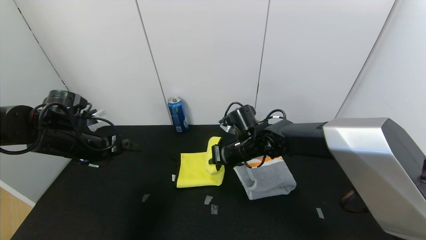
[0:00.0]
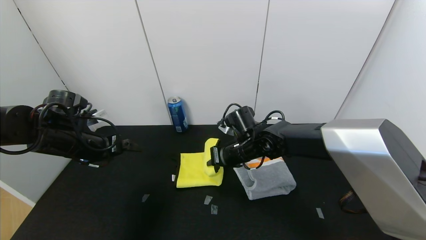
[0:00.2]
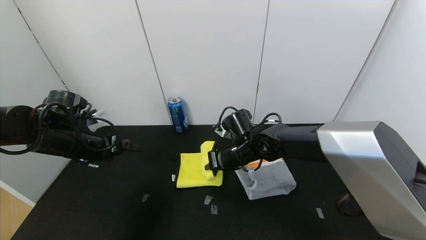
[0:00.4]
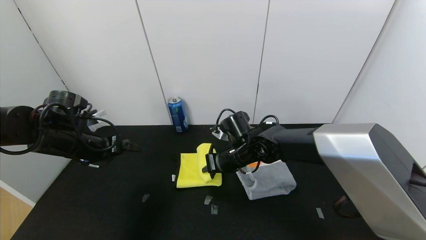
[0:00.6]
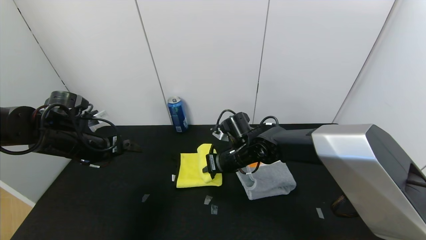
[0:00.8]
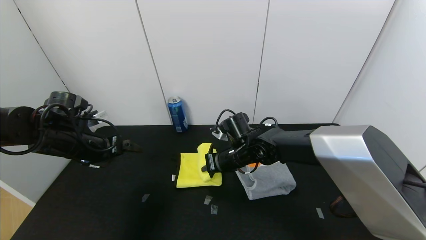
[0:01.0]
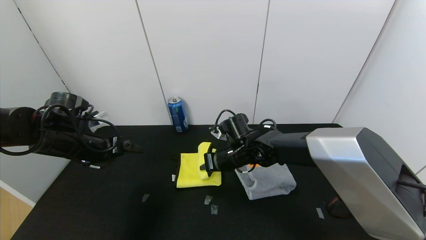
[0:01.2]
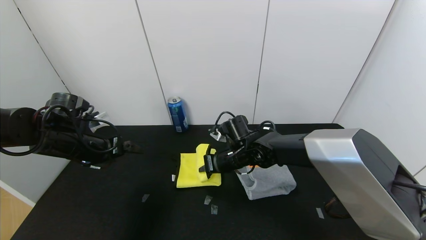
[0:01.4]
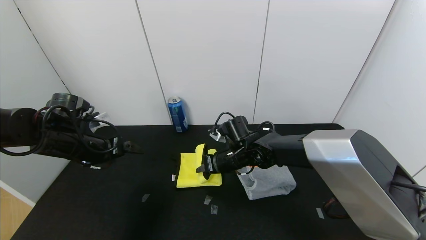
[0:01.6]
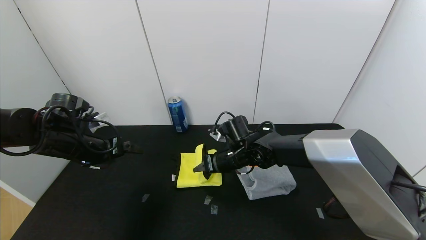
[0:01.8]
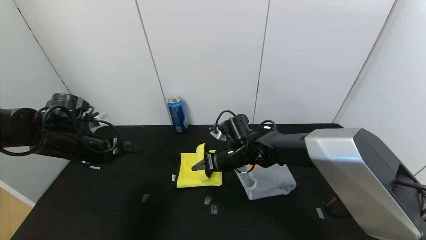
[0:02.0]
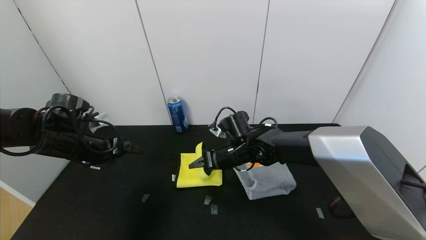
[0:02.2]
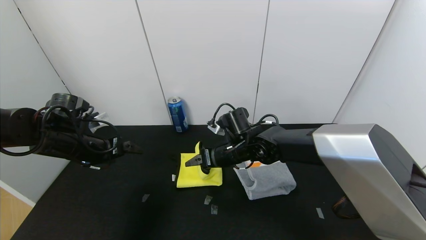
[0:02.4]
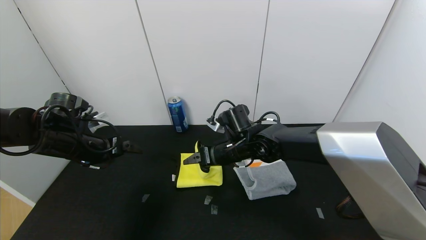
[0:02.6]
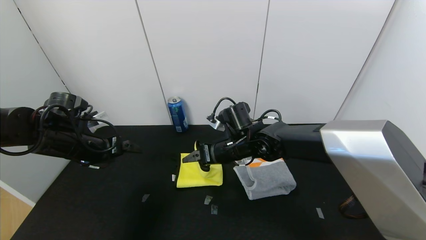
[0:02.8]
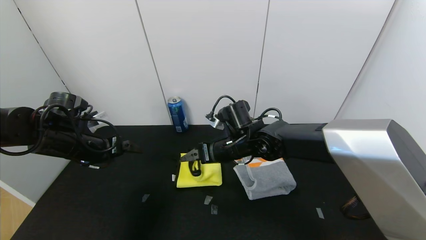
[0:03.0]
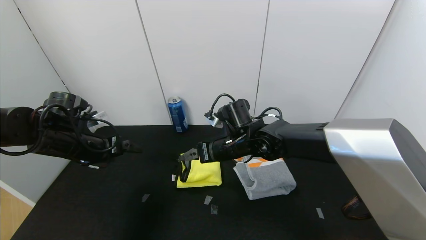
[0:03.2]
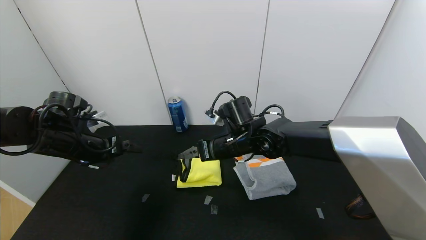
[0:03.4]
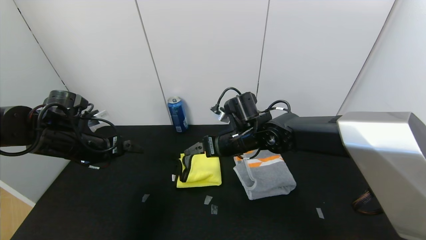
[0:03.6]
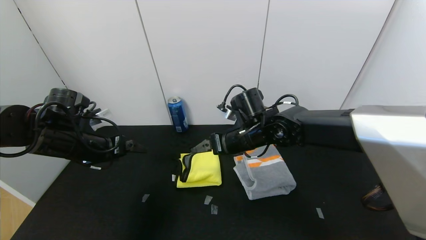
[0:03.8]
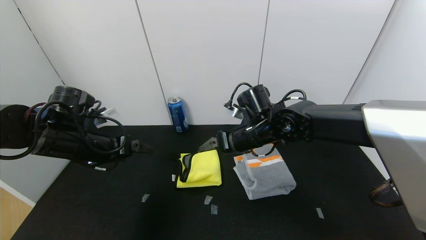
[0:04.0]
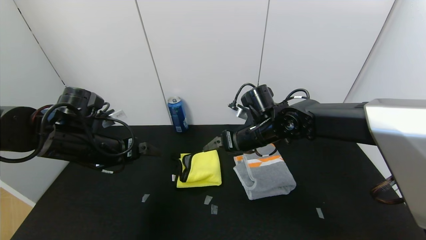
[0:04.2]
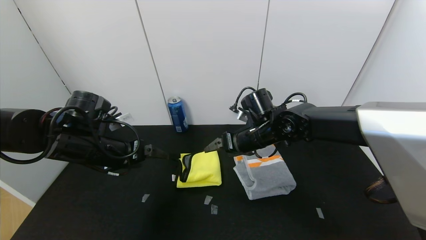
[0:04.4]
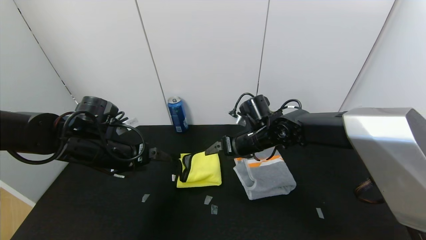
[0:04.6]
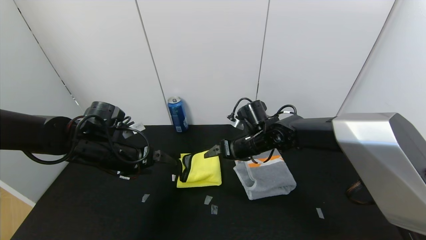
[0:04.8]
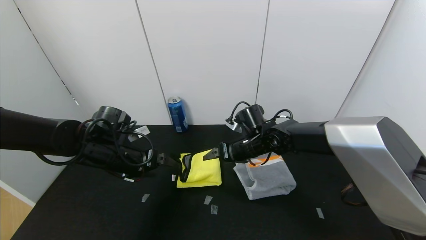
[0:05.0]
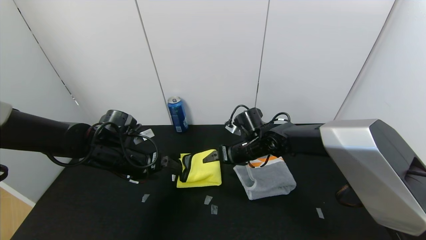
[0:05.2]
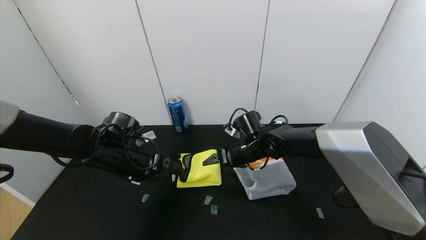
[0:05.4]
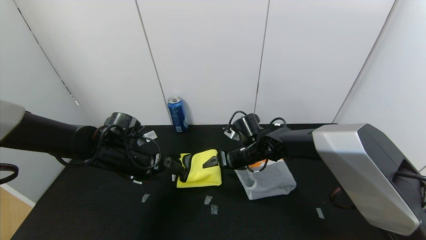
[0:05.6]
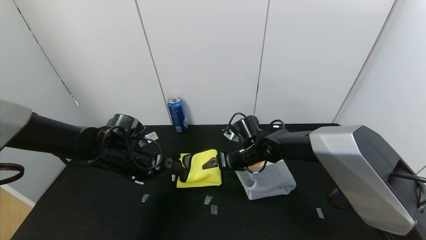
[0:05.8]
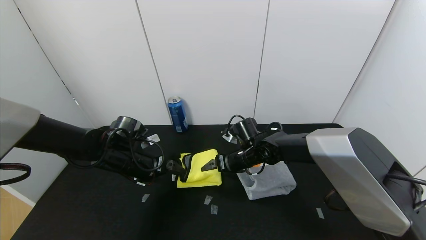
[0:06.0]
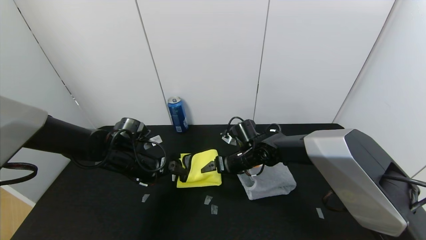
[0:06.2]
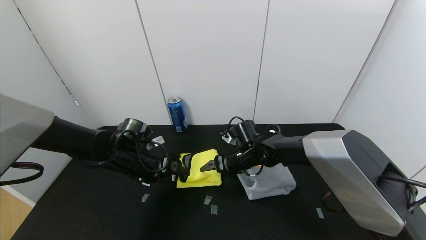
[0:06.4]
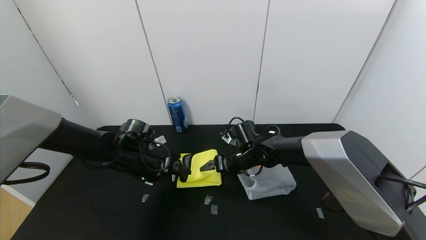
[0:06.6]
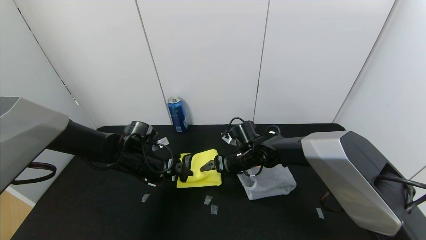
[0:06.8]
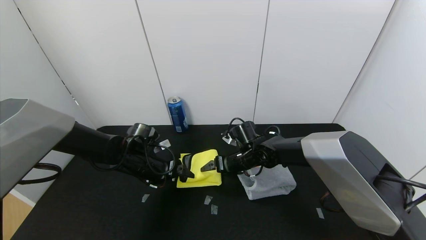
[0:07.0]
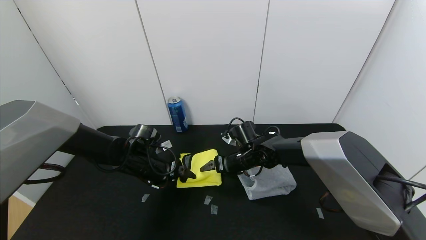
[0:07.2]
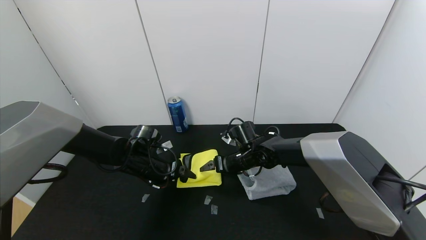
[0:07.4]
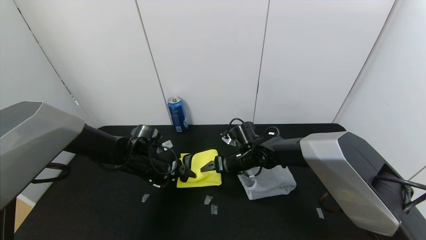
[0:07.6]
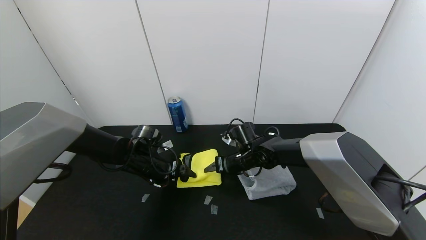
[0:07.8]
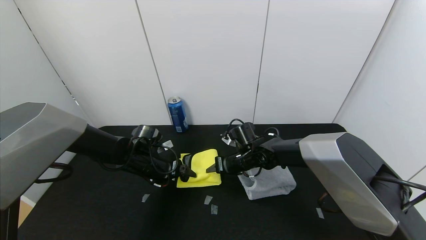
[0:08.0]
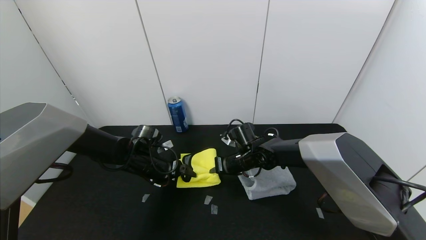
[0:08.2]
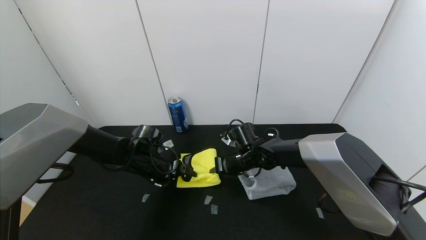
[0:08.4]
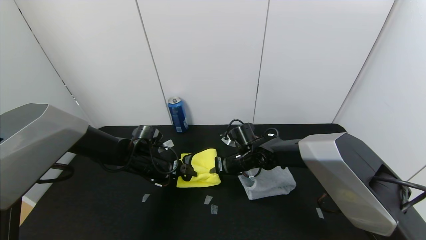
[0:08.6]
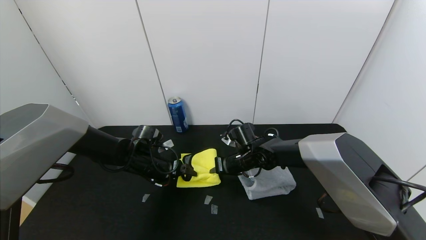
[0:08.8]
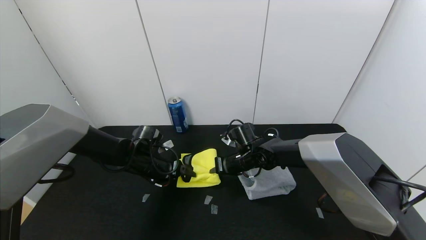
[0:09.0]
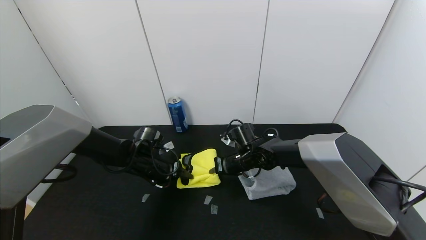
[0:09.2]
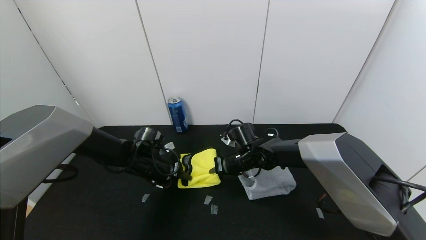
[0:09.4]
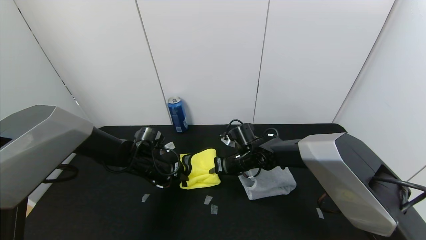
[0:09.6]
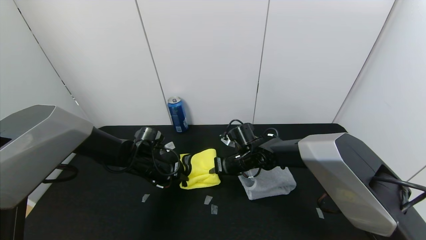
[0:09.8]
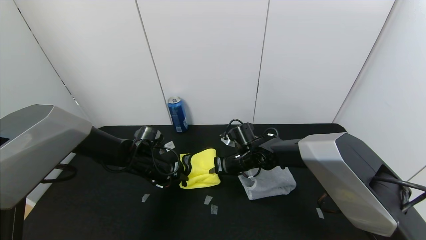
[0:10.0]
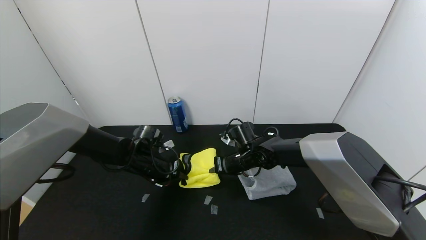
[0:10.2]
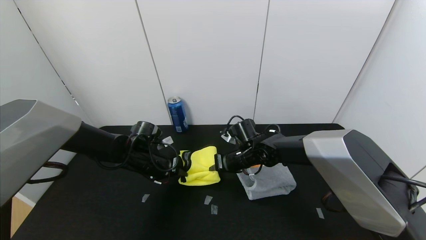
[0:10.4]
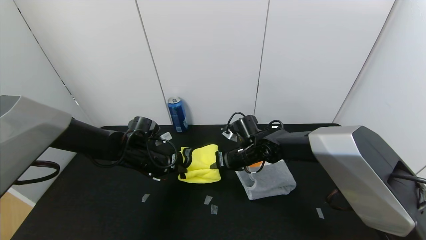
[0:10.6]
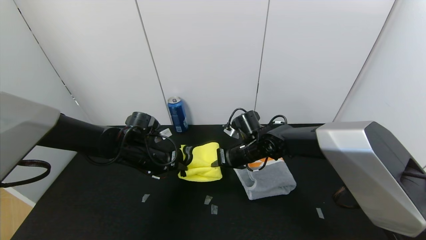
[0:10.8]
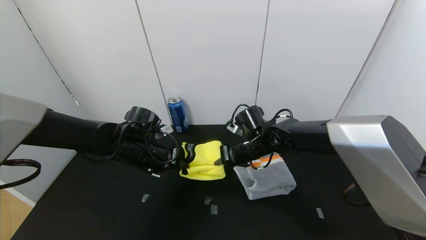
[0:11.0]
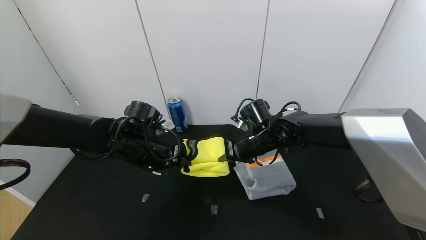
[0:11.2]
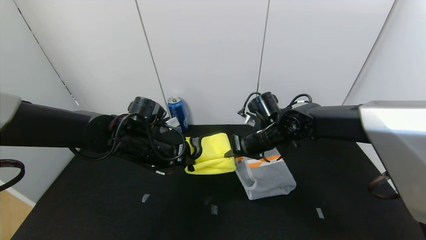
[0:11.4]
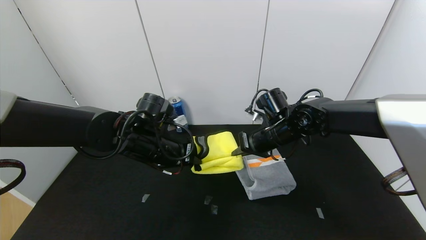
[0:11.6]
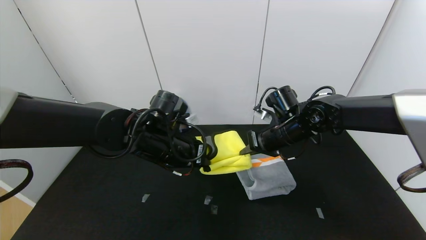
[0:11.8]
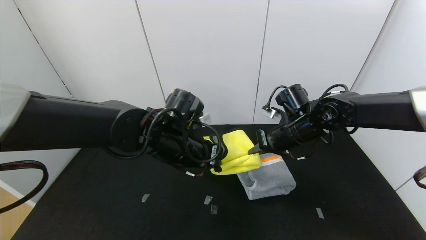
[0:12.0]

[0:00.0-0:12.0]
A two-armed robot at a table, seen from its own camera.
Task of the whole recording: Use the gripper to fold the yellow towel and grey towel in half twice,then put the yellow towel on the grey towel.
Step, 0:00.0 to 0:03.2: Fold the yellow towel from right to left with right gripper.
0:00.0 to 0:01.6: The grippers stay close to where they were, moving slightly.
0:01.6 to 0:03.0: The right gripper shifts by roughly 5 cm, and opens up.
0:03.0 to 0:04.4: The grippers both shift to the right by approximately 5 cm.
0:04.4 to 0:06.0: The two grippers go roughly 10 cm downward.
0:06.0 to 0:07.6: The left gripper moves about 5 cm.
0:07.6 to 0:09.0: The right gripper closes its fingers.
0:09.0 to 0:10.4: The left gripper closes.
0:10.4 to 0:12.0: The left gripper shifts about 20 cm to the right, upward and backward, while the right gripper moves to the right and upward, about 15 cm.

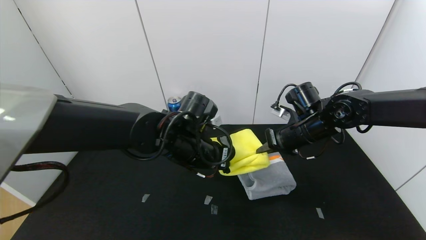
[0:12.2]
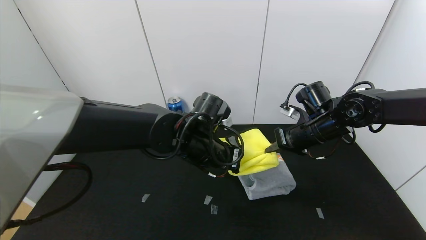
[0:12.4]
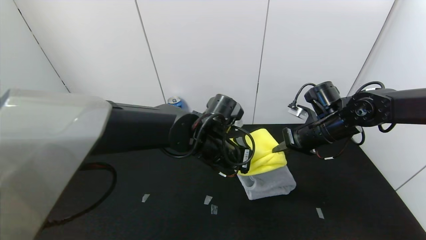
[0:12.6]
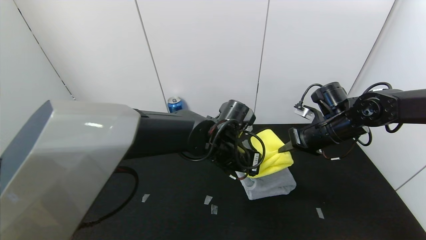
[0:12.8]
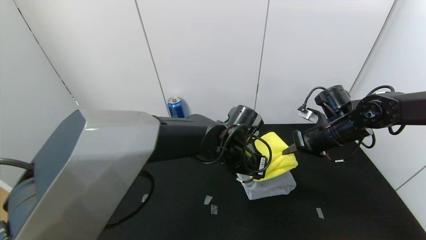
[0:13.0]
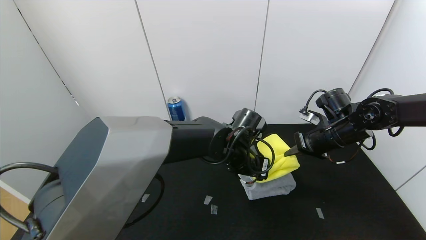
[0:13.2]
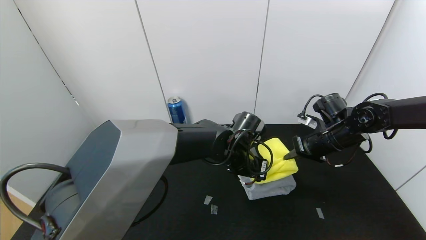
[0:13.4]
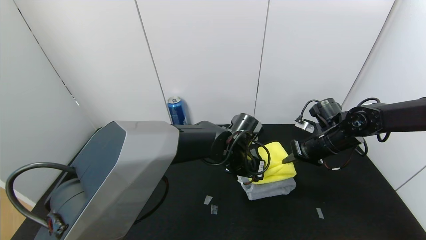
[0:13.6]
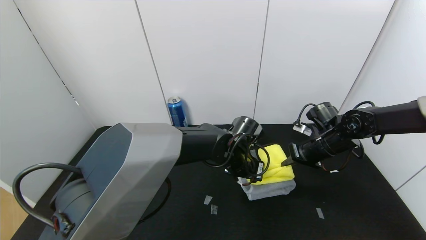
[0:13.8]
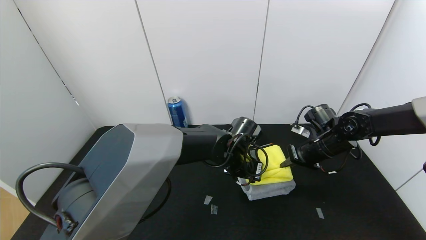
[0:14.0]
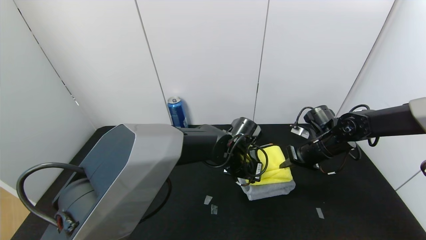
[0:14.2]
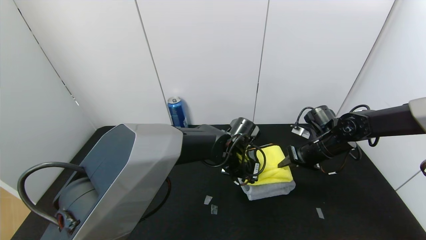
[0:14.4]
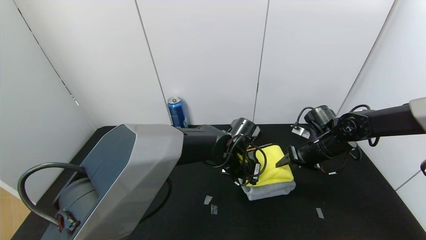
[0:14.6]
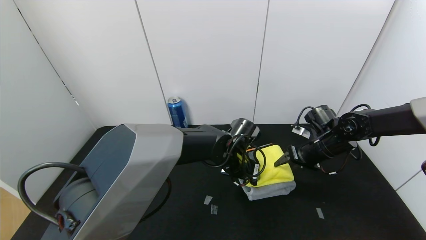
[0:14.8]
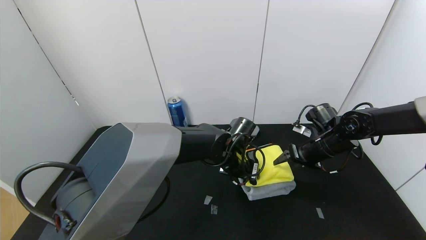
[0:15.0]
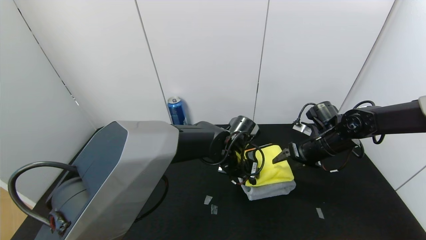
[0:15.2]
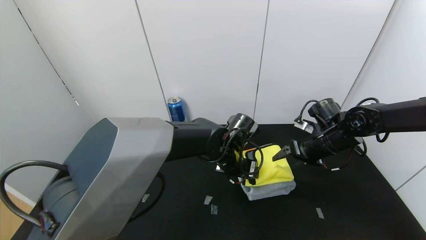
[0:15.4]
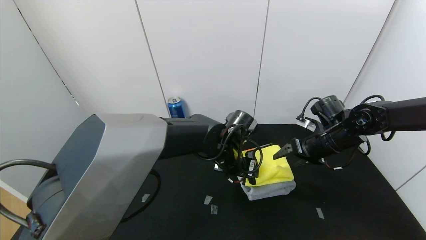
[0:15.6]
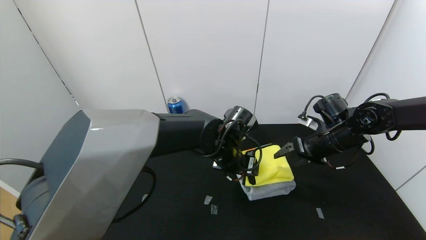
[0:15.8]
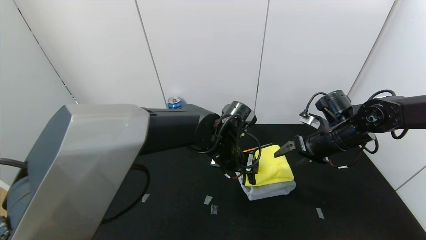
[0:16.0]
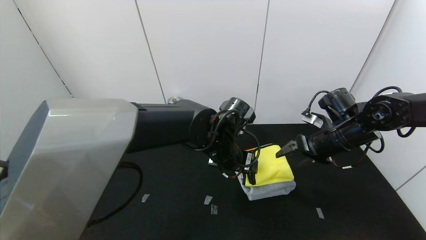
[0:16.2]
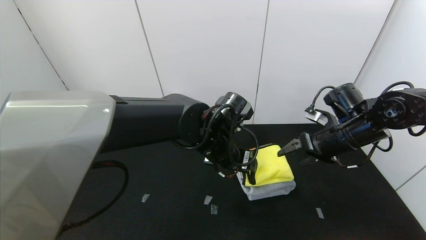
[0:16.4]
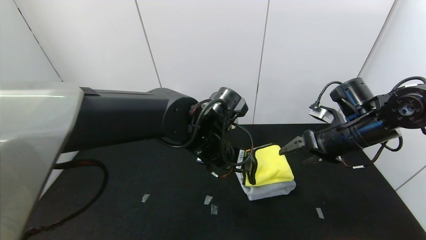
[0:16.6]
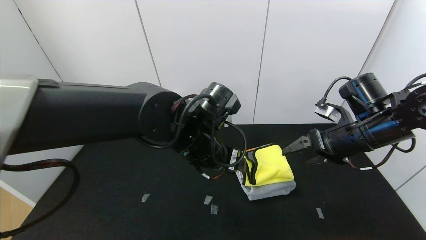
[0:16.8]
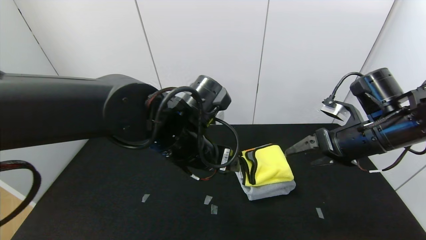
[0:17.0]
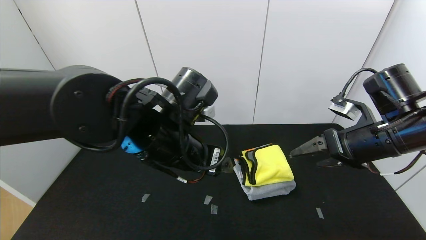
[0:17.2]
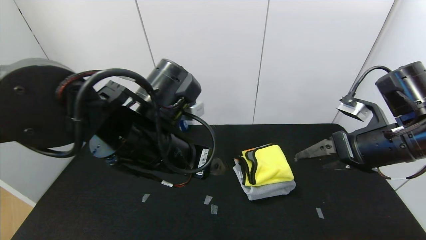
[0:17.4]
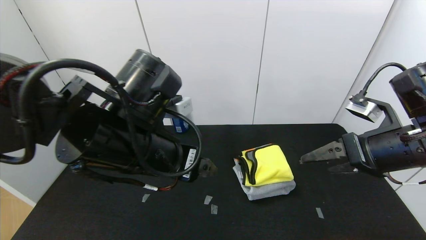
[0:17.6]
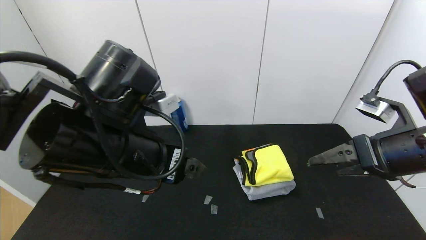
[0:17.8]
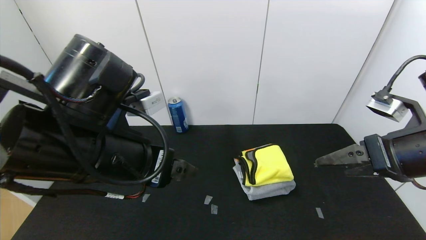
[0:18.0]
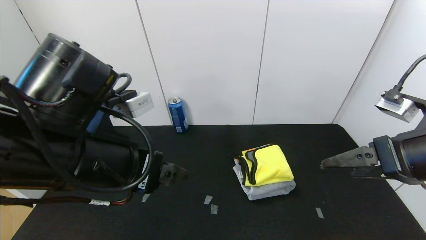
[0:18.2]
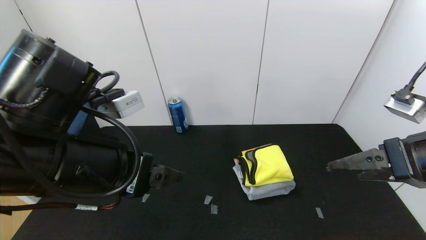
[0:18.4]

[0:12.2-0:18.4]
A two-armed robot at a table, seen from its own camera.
Task of the whole recording: Use the gripper to fold the yellow towel and grey towel in half twice,then put the yellow towel on the grey towel.
Step, 0:12.2 to 0:15.8: Place the yellow towel on the gray towel with the left gripper.
Step, 0:12.2 to 0:15.8: Place the yellow towel on the gray towel with the right gripper.
0:12.2 to 0:13.8: The grippers both shift to the right and downward by approximately 10 cm.
0:13.8 to 0:15.4: The left gripper opens up. The right gripper opens.
0:15.4 to 0:16.8: The right gripper travels upward and backward by approximately 10 cm. The left gripper is displaced upward, backward and to the left by approximately 15 cm.
0:16.8 to 0:18.4: The left gripper moves to the left, backward and upward, some 20 cm. Meanwhile the right gripper is displaced backward and upward by some 15 cm.
